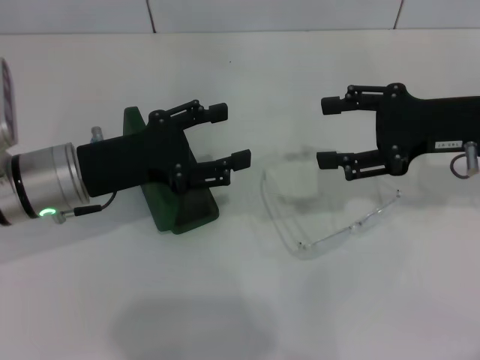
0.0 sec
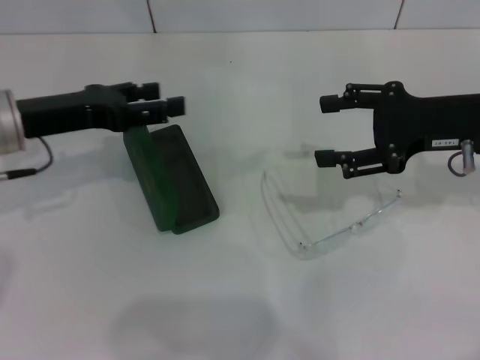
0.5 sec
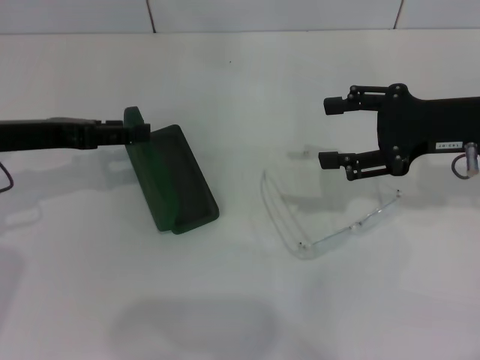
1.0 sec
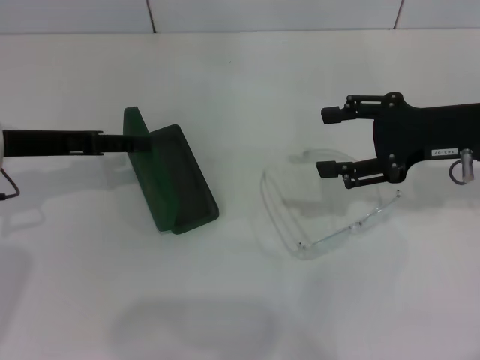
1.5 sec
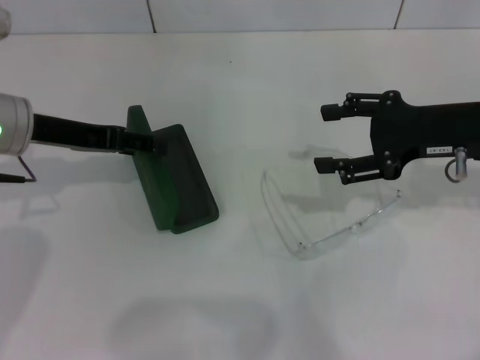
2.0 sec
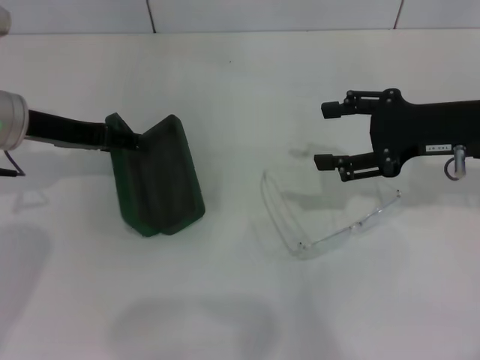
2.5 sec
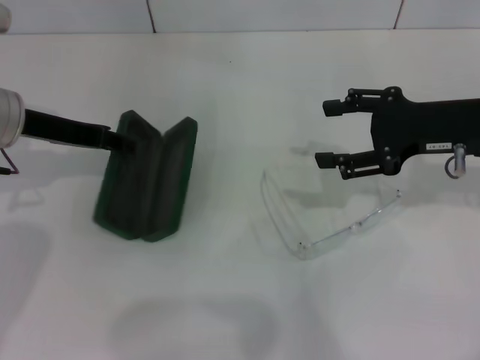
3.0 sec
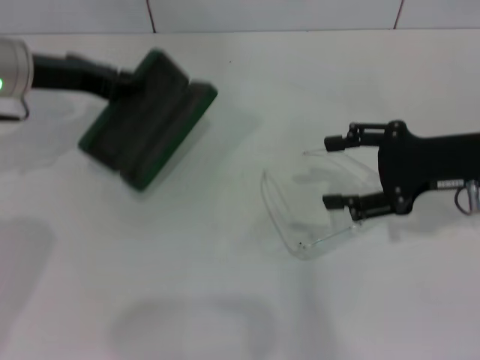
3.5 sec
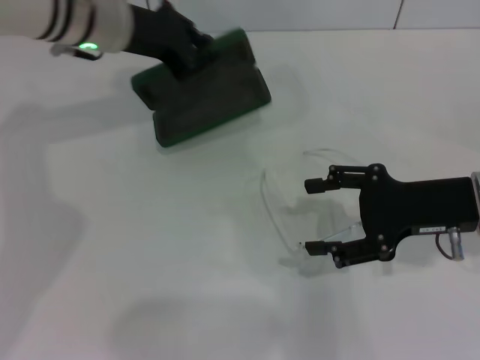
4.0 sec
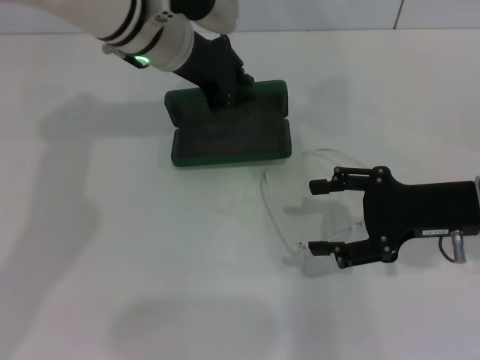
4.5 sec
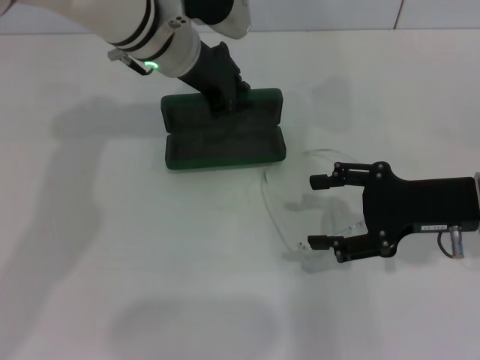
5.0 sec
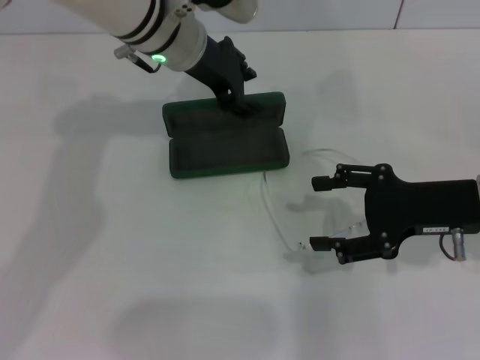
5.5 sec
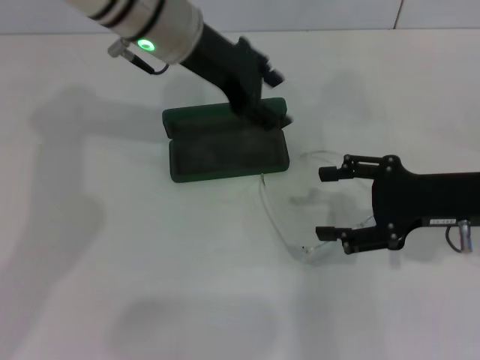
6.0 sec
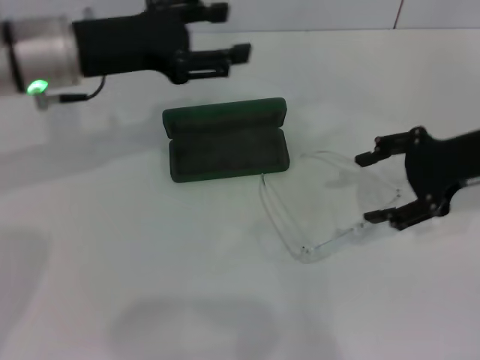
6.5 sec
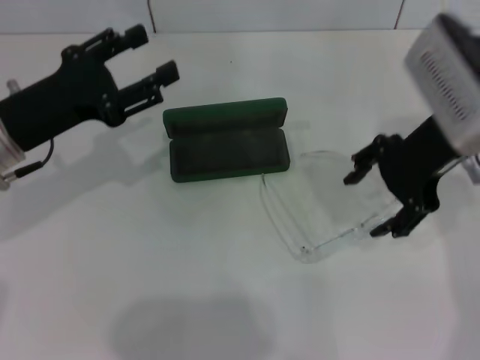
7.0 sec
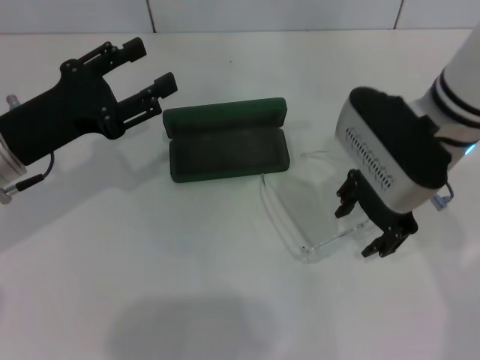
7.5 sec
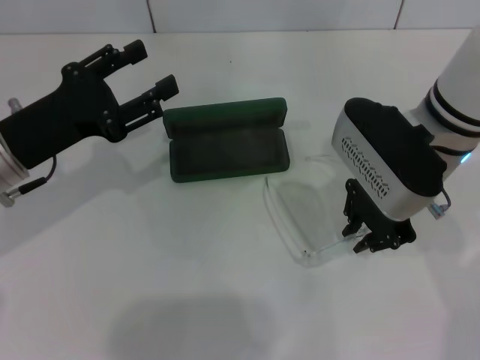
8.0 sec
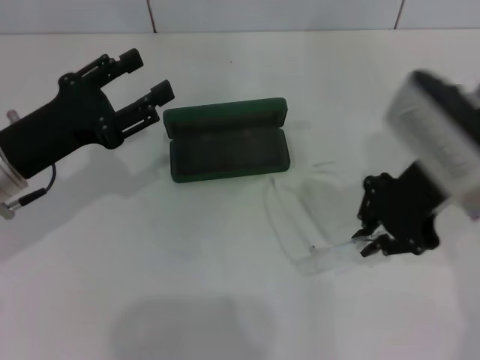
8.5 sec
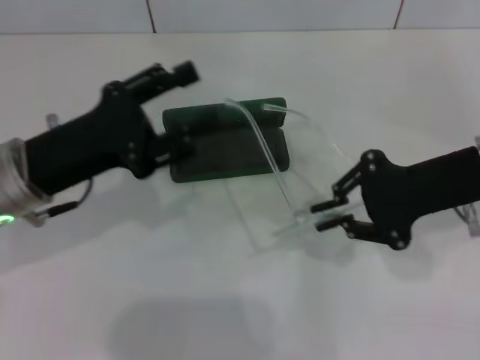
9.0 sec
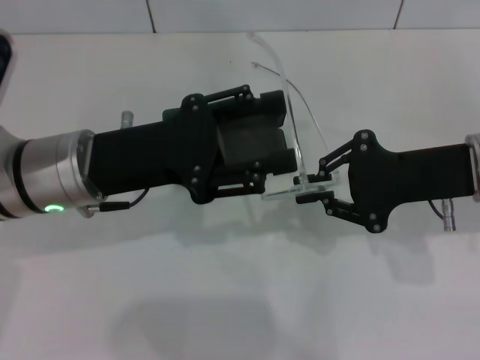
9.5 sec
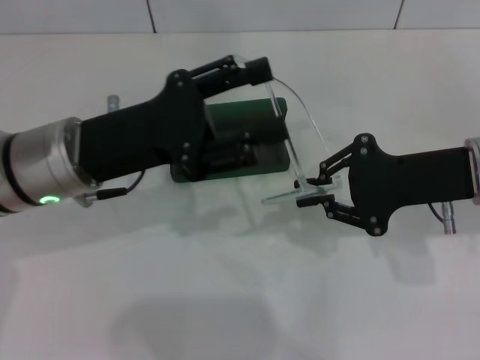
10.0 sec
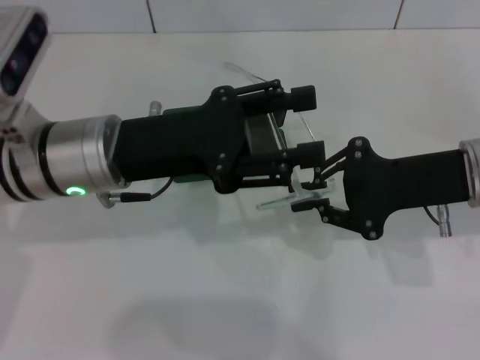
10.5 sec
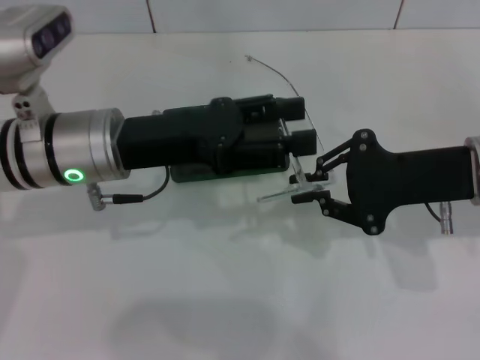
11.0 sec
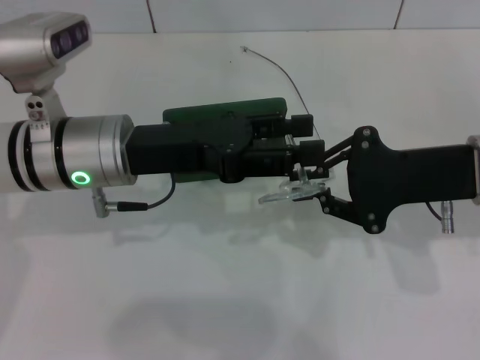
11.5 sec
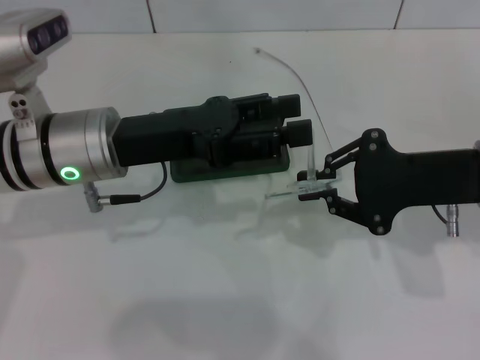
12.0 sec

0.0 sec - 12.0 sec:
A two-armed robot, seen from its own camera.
Step, 0.0 sec - 3.0 sec: Grab the glasses case with your left hand.
Step, 3.5 sec - 5.5 sec: Place the glasses case in the center of the table with your left hand.
Step, 6.0 sec - 8.0 sec: Grab the eyeglass frame with your right hand.
0.0 sec - 2.0 sec: The left gripper goes some 5 cm forward.
2.0 sec - 4.0 sec: The right gripper moves about 5 cm. Meanwhile the left gripper travels to the right and forward by approximately 15 cm, and closes.
4.0 sec - 6.0 sec: The left gripper moves to the right, some 5 cm, and opens up.
6.0 sec - 8.0 sec: The right gripper goes roughly 10 cm to the left and upward, and closes its fingers, while the left gripper moves to the left, backward and downward, roughly 25 cm.
8.0 sec - 10.0 sec: The grippers both shift to the right by some 10 cm. The right gripper closes its fingers.

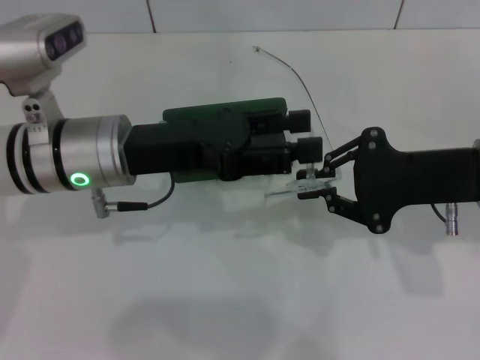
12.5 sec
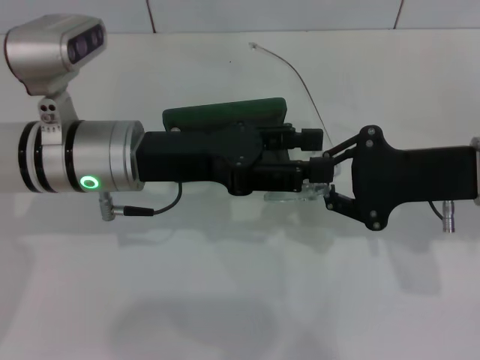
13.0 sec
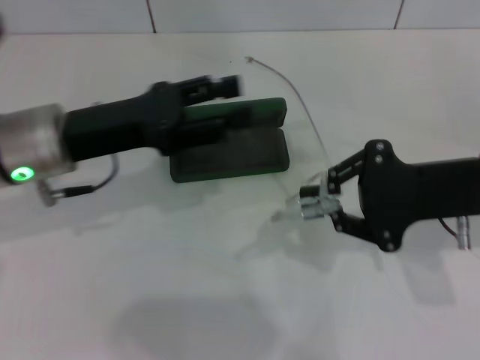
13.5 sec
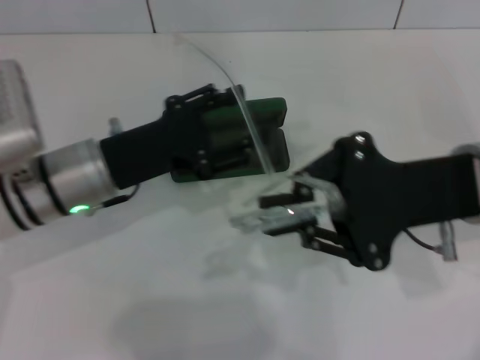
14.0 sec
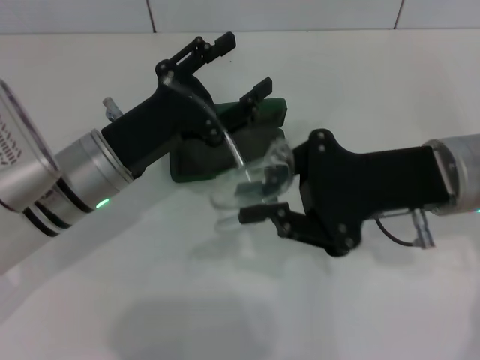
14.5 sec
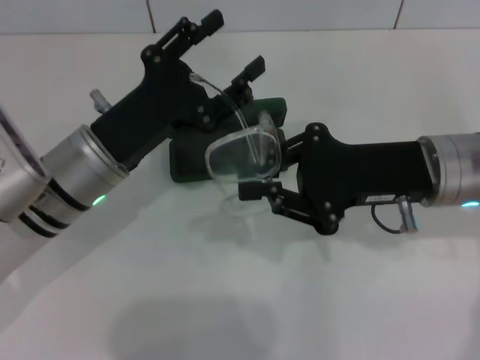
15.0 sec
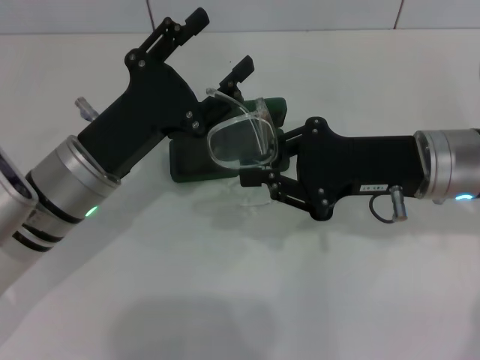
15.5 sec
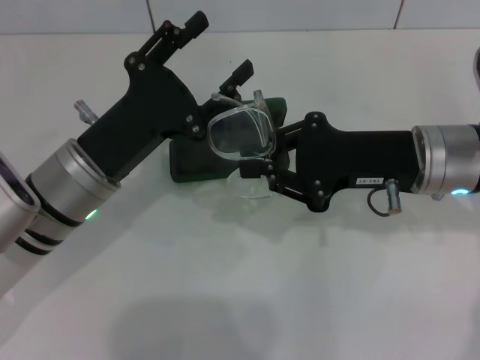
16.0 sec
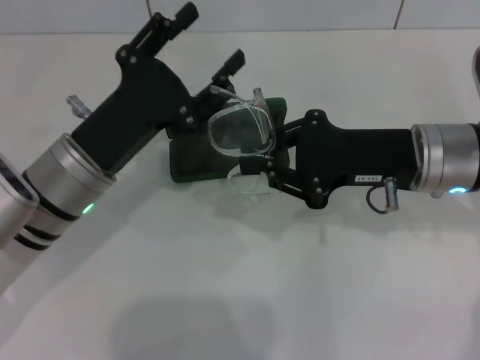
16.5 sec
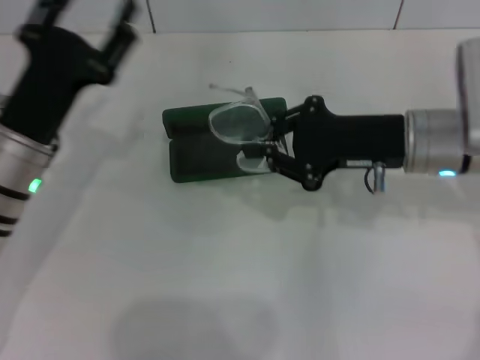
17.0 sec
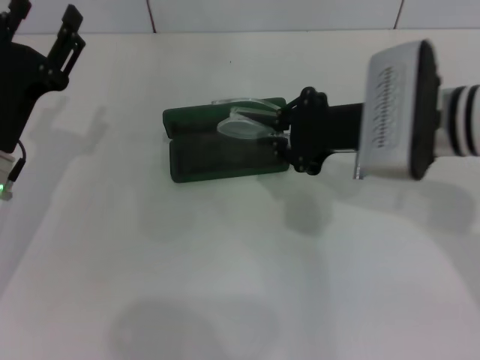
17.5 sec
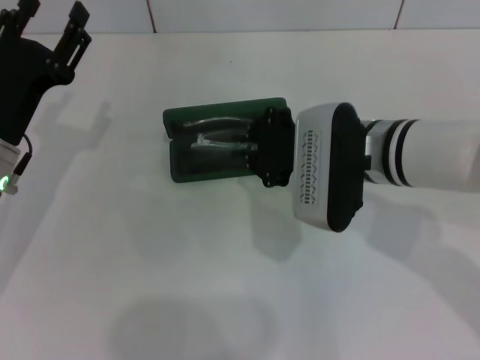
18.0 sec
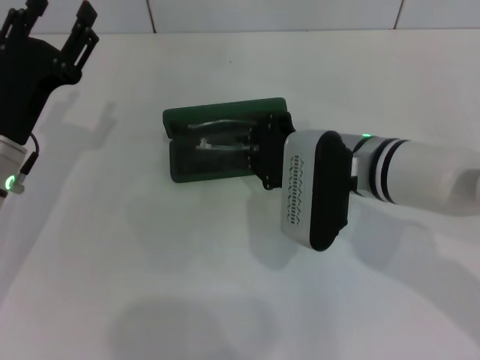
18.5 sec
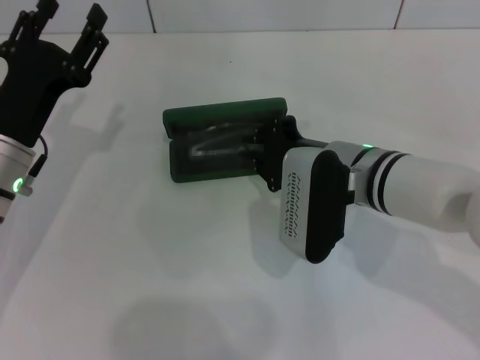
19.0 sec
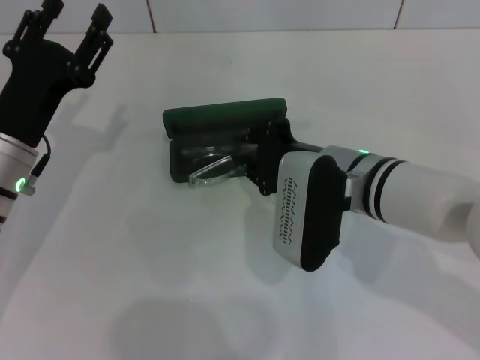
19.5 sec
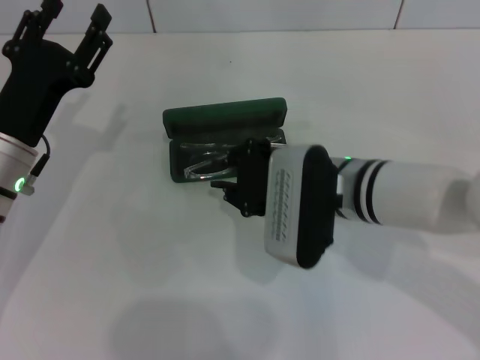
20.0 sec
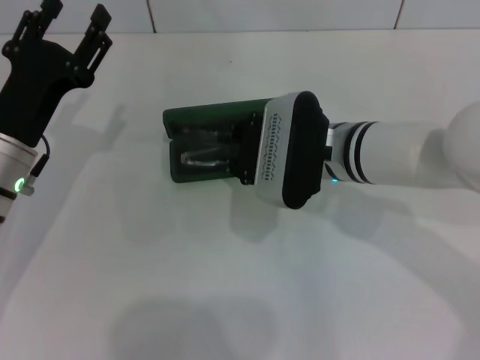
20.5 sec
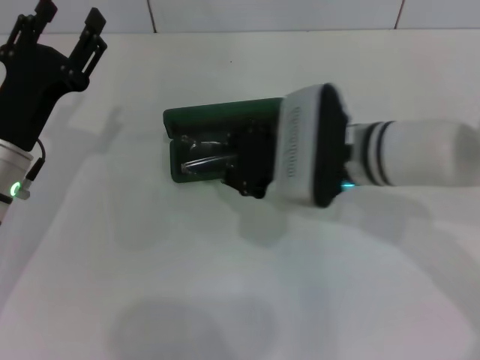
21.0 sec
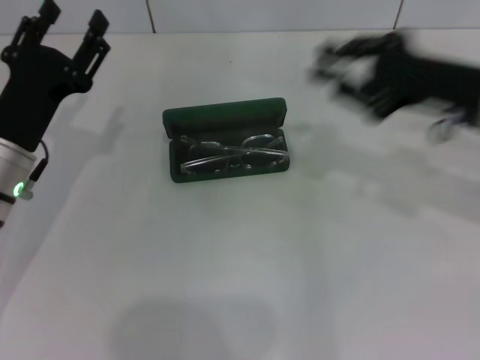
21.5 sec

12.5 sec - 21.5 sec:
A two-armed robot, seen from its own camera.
Step, 12.5 sec - 16.5 sec: Lift the glasses with your right hand.
Step, 17.0 sec - 20.5 sec: Put the glasses into the case with your right hand.
12.5 sec - 14.5 sec: The right gripper is displaced to the left by approximately 5 cm.
17.0 sec - 19.5 sec: The right gripper heads to the left, covering about 10 cm.
19.5 sec - 21.5 sec: The right gripper travels to the right and upward by about 15 cm.

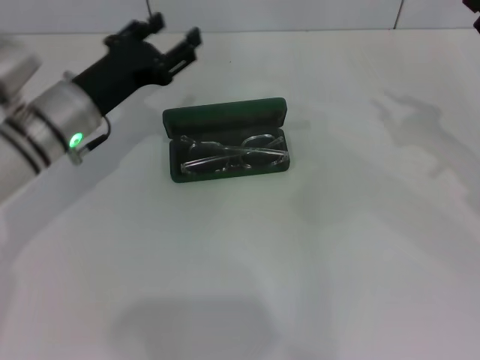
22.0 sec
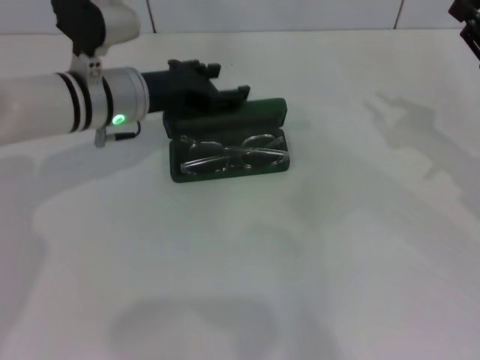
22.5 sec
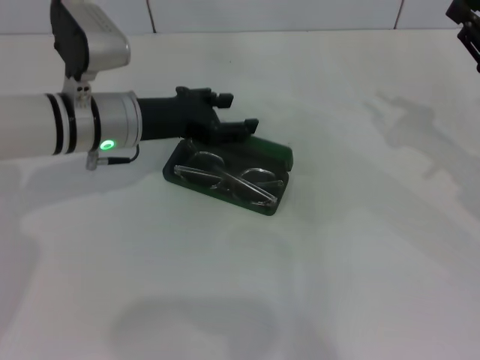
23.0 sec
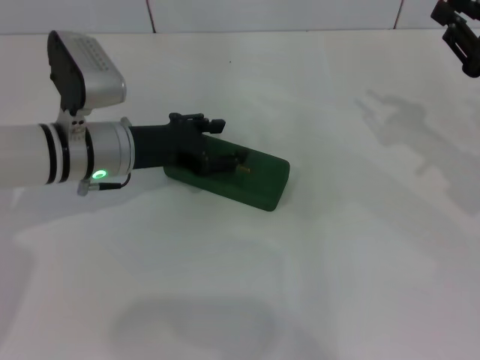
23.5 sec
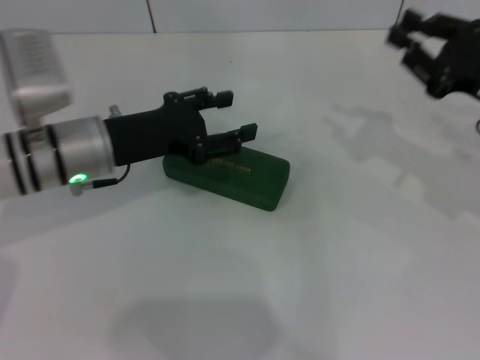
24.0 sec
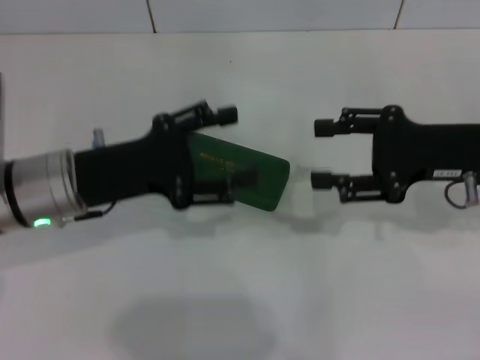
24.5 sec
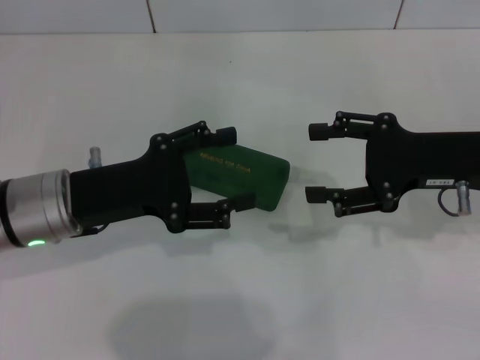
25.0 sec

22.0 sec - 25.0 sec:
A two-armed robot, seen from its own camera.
23.5 sec - 25.0 sec: The left gripper is displaced backward by about 10 cm. The right gripper shifts about 5 cm to the left, and opens.

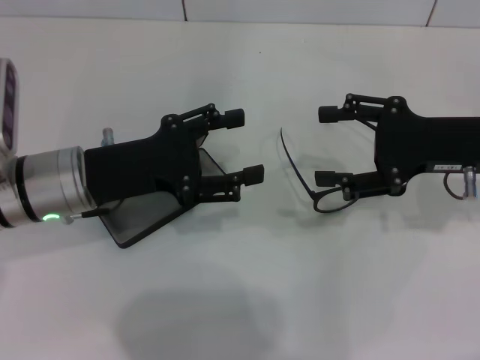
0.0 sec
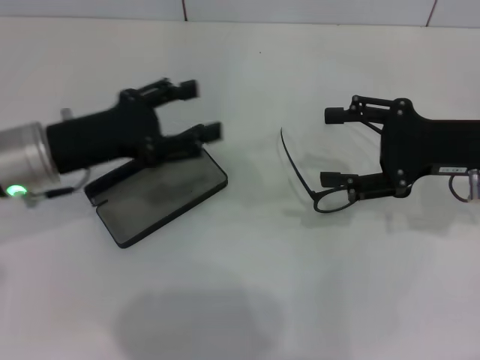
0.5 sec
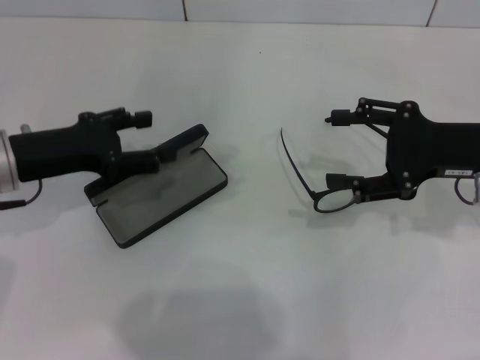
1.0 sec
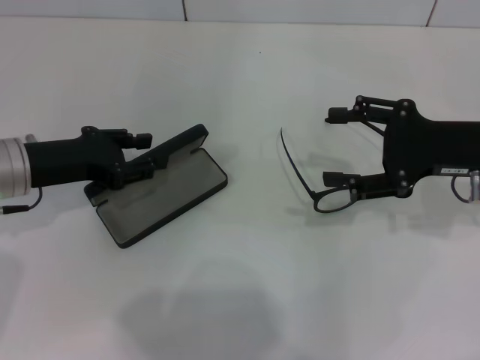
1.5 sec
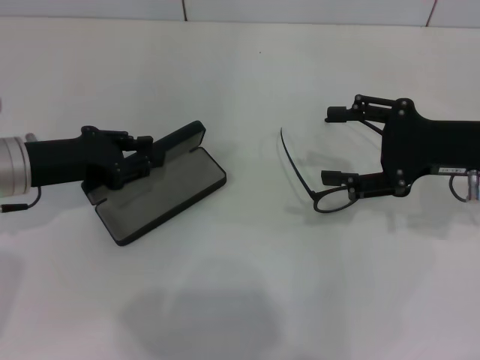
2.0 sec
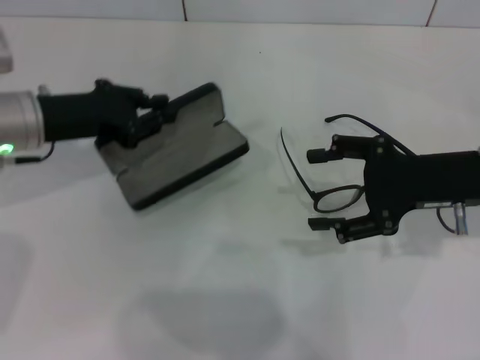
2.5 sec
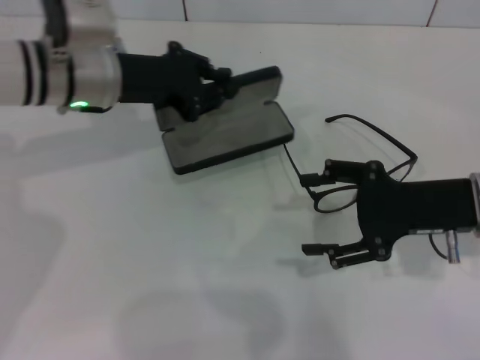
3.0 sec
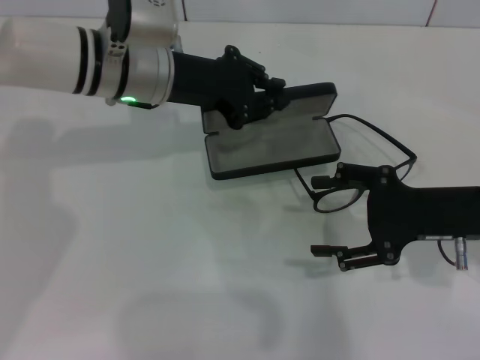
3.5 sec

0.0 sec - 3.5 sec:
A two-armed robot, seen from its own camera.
Step, 0.0 sec - 1.5 sec: Grab the glasses case with your left hand.
0.0 sec - 2.0 sec: The left gripper shifts approximately 5 cm to the left, and closes up.
2.0 sec - 3.5 sec: The left gripper heads to the right and forward, covering roughly 15 cm. Meanwhile the right gripper ends up some 5 cm from where it was.
